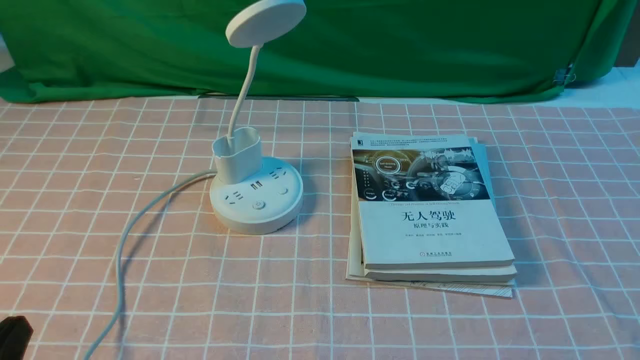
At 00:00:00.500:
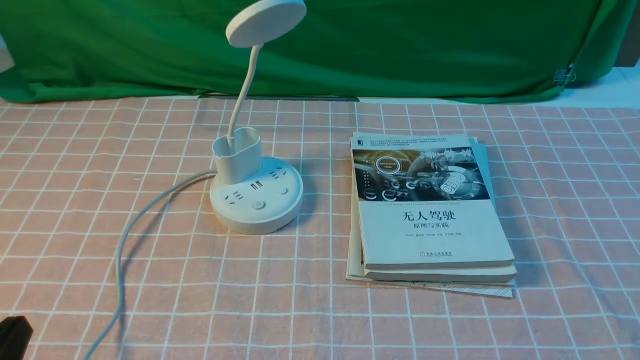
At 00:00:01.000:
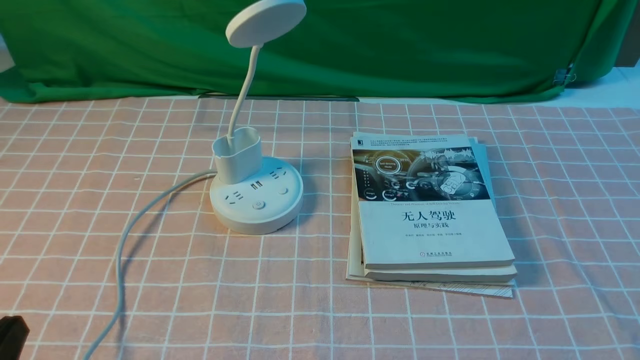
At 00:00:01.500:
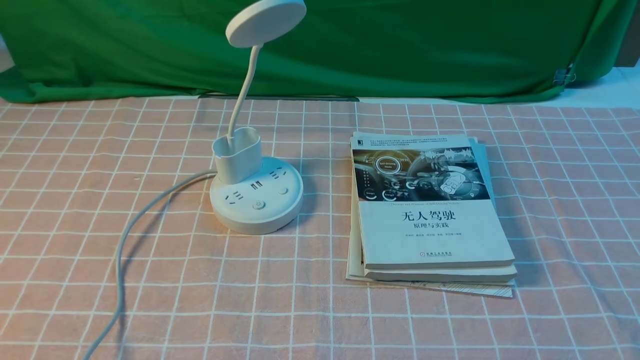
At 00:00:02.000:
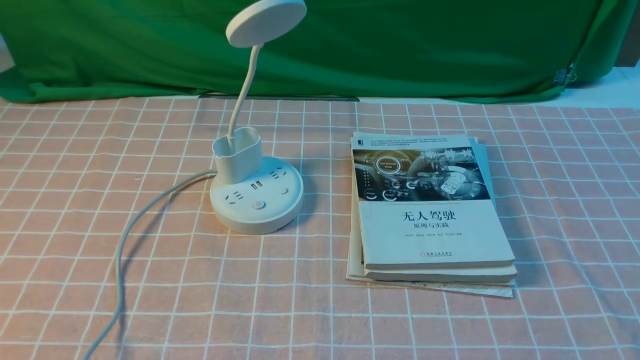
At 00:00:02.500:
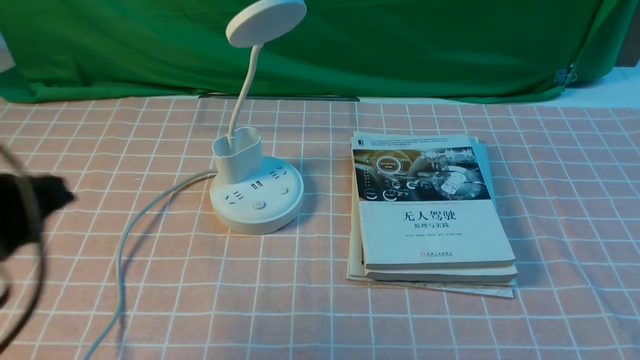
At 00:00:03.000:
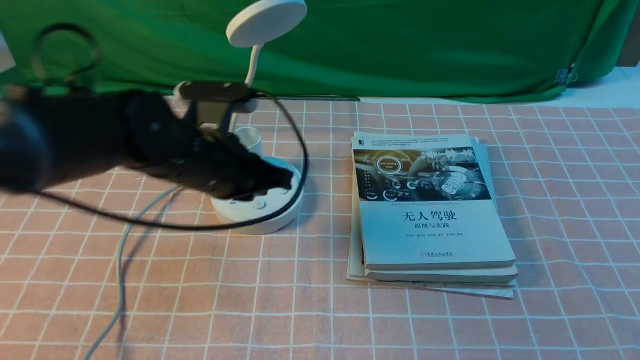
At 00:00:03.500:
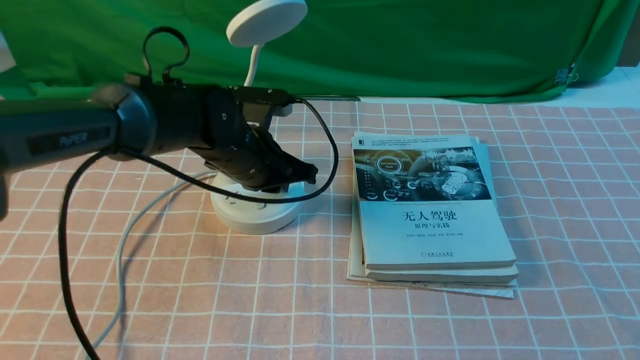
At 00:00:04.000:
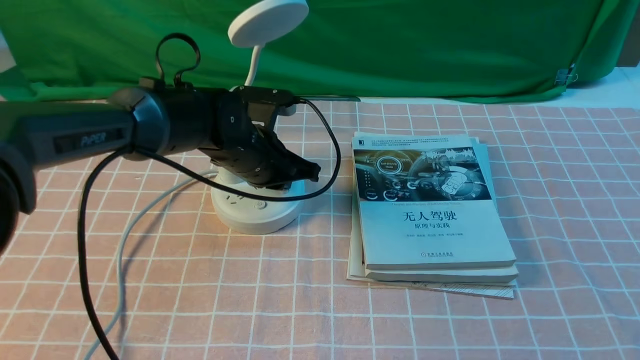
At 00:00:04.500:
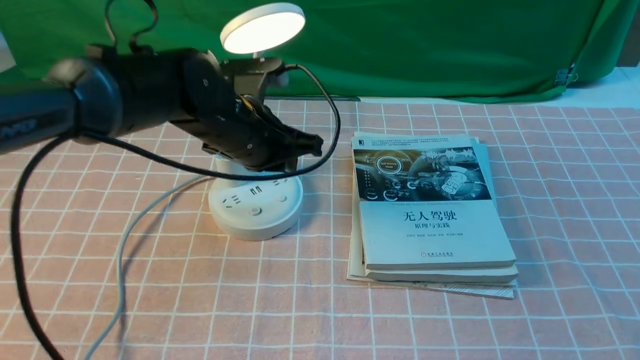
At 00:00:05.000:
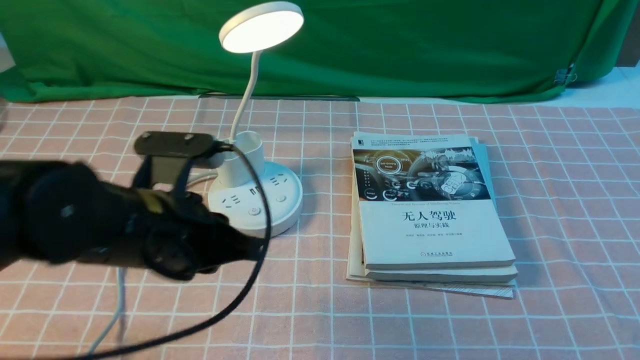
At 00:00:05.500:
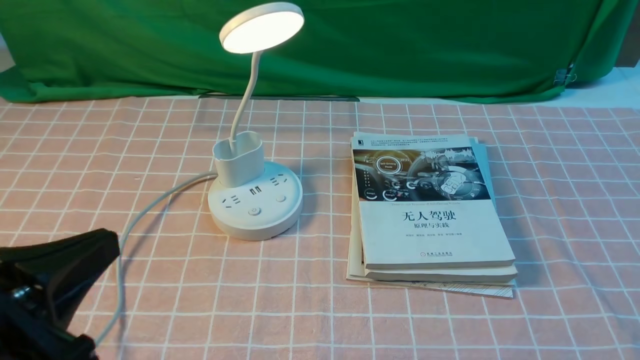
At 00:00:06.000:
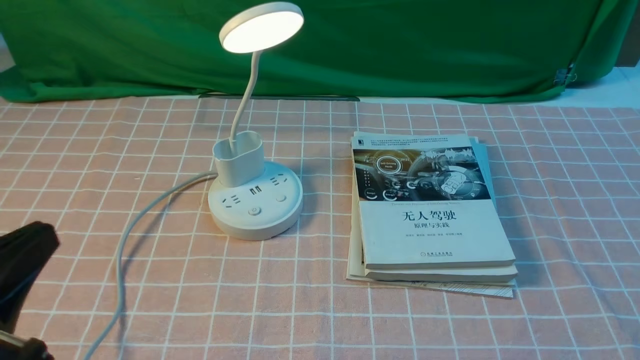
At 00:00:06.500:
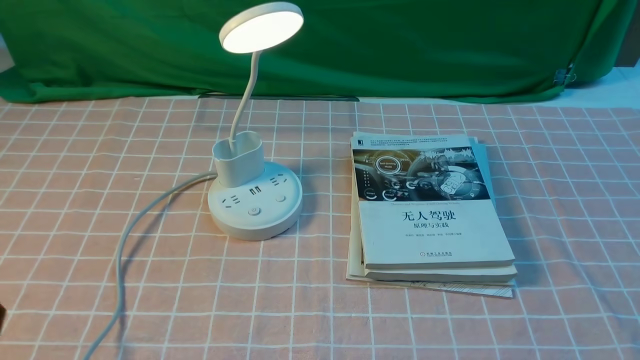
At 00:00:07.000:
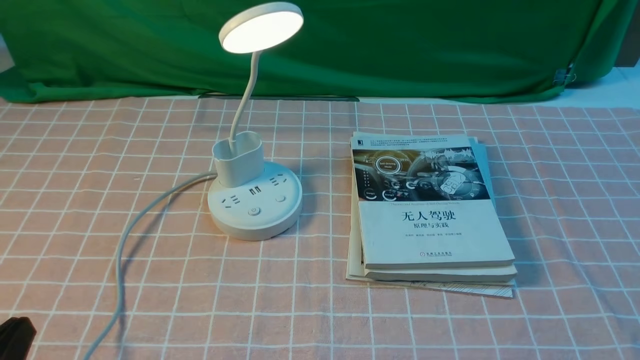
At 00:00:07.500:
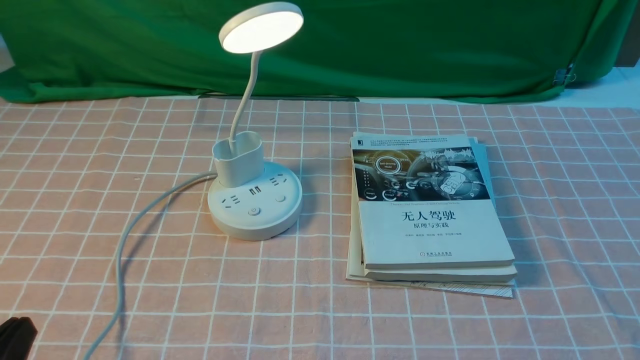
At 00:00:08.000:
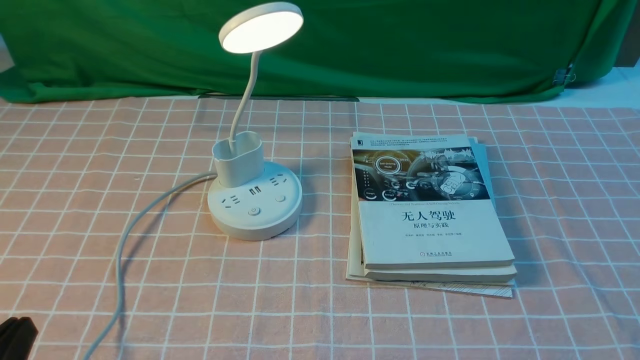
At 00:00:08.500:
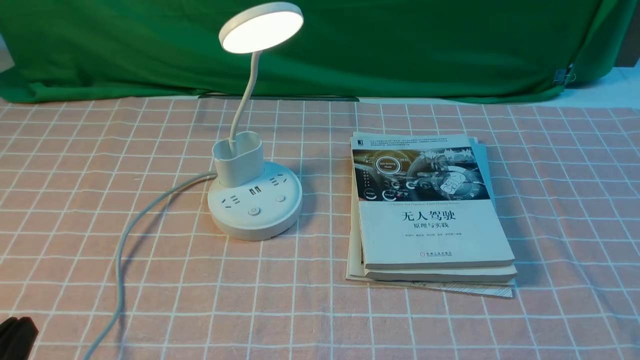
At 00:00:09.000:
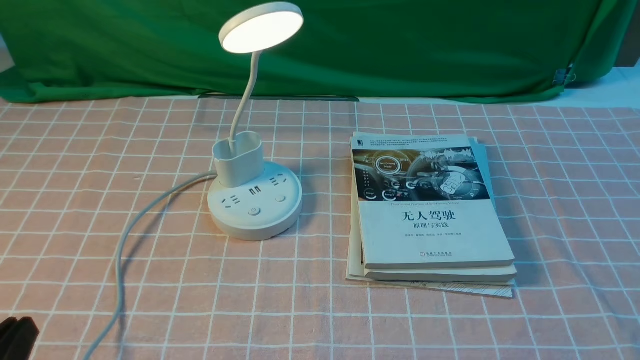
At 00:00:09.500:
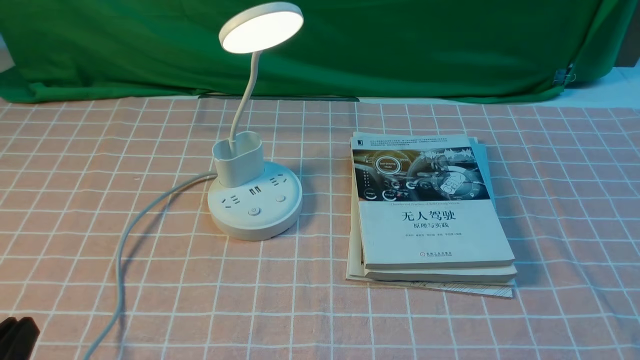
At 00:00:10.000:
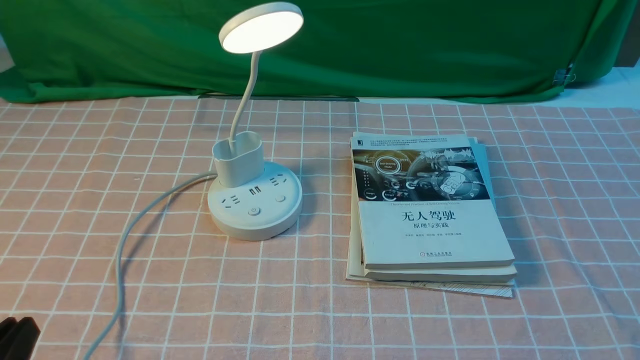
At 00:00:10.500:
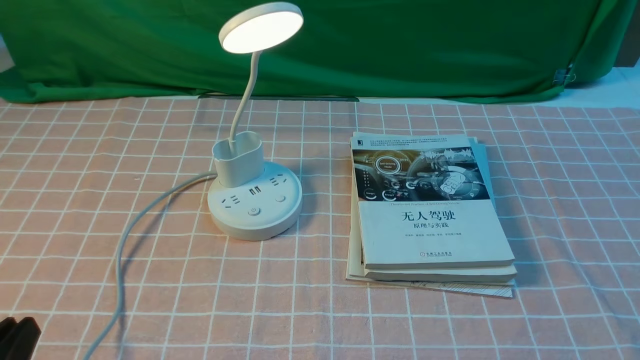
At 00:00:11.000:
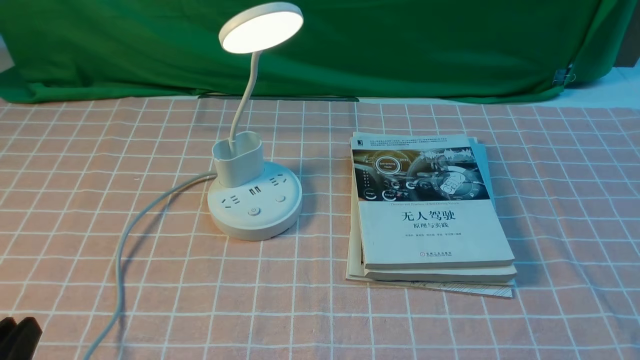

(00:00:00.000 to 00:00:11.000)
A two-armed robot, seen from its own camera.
Step, 00:00:00.000 - 00:00:04.000: use the left arm to press the button switch on the lamp holder.
00:00:02.000 - 00:00:03.500: The left gripper travels forward and to the right by about 40 cm.
00:00:03.500 - 00:00:05.500: The left gripper is displaced backward and to the left by about 30 cm.
00:00:05.500 - 00:00:07.500: The left gripper travels downward by some 10 cm.
00:00:07.500 - 00:00:09.000: Both grippers stay about where they are.
